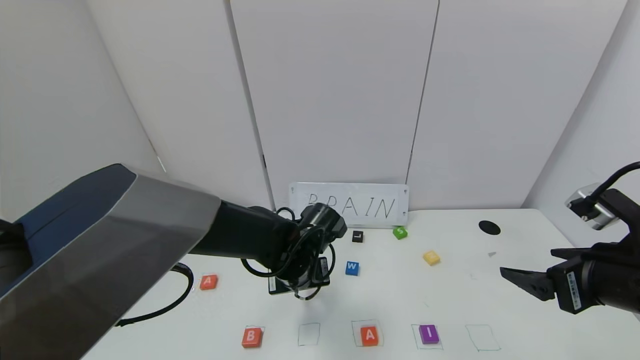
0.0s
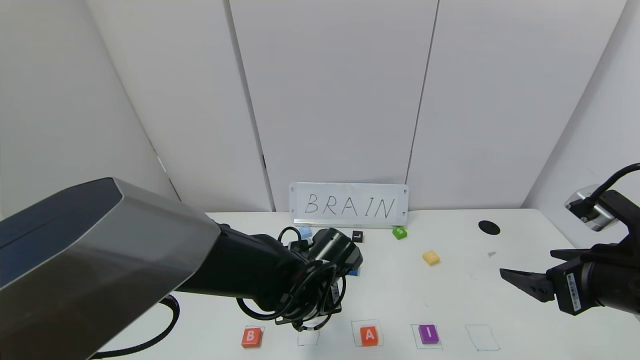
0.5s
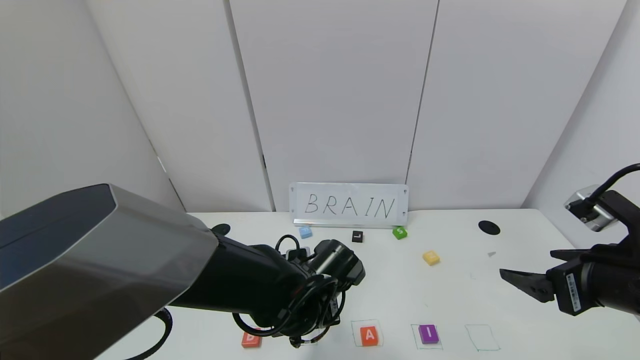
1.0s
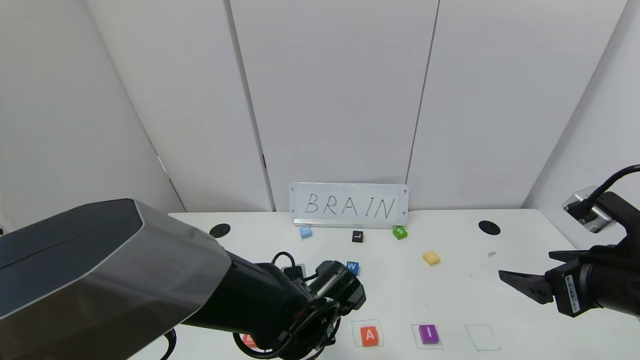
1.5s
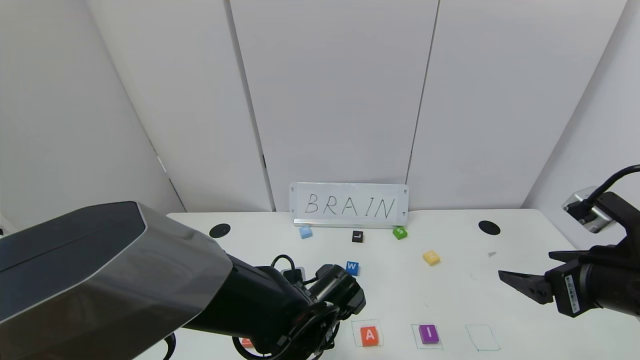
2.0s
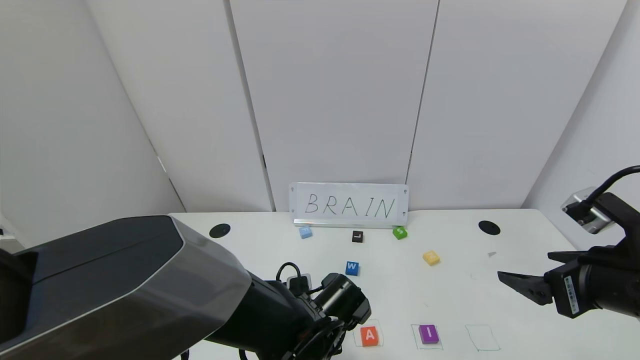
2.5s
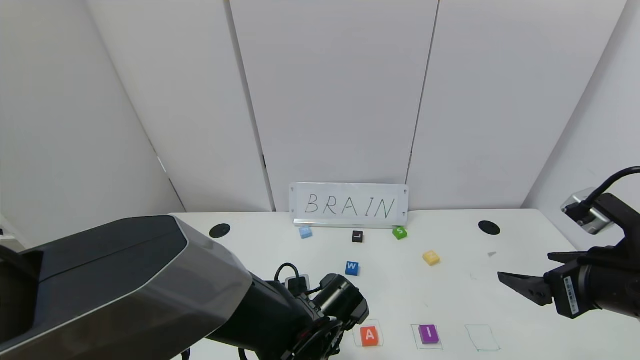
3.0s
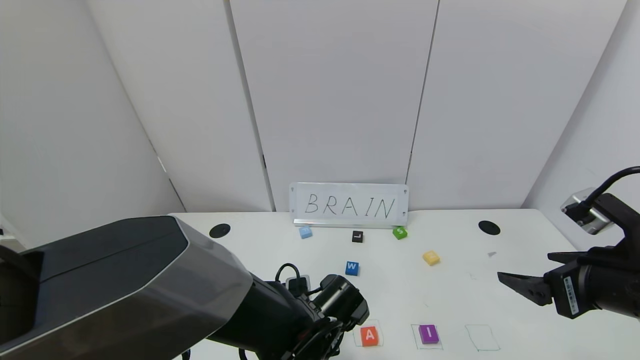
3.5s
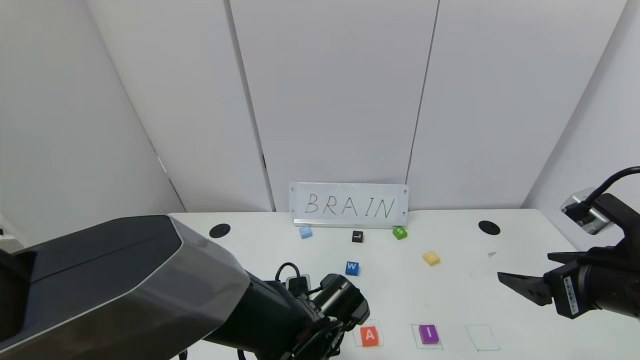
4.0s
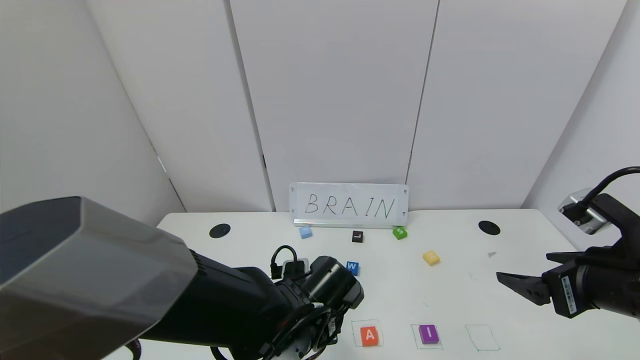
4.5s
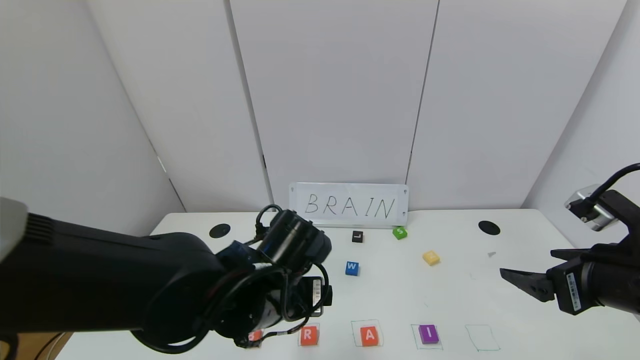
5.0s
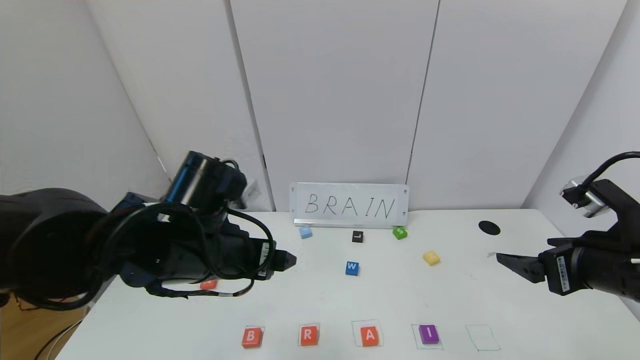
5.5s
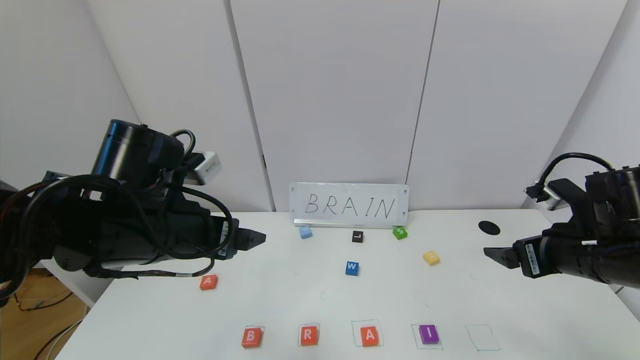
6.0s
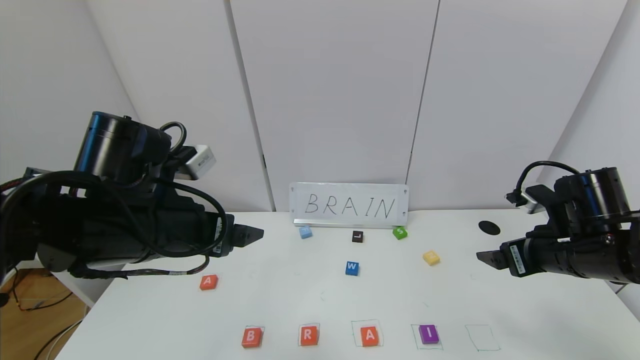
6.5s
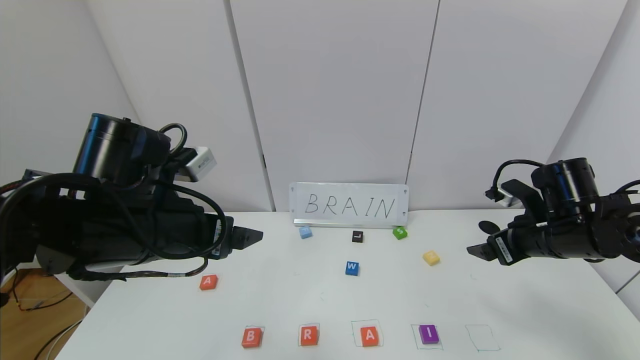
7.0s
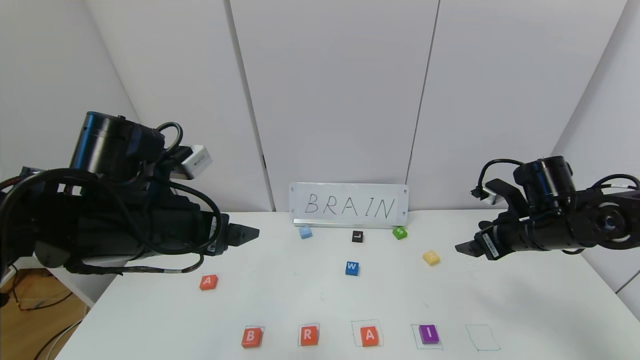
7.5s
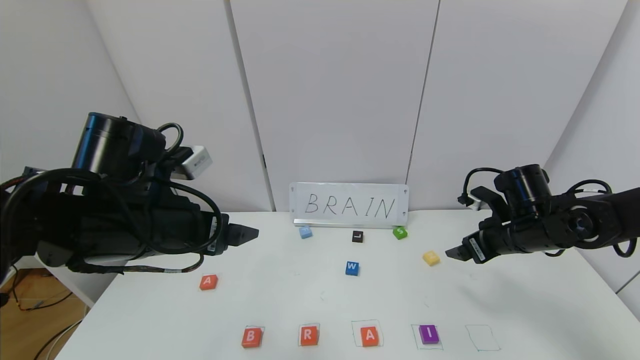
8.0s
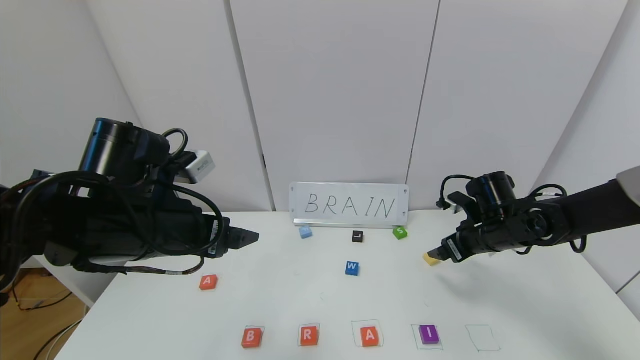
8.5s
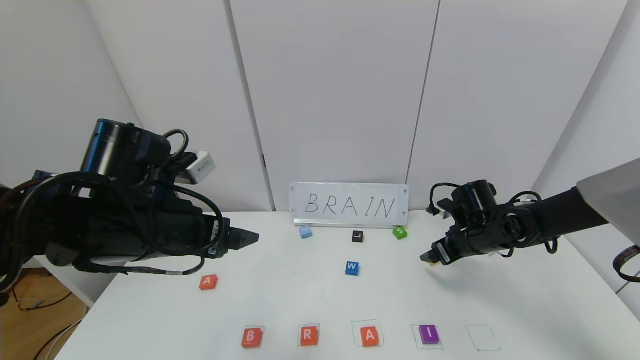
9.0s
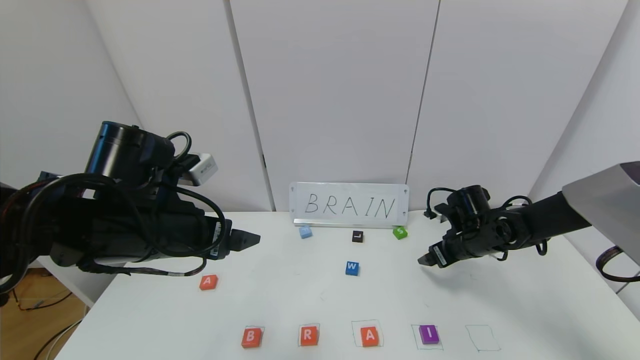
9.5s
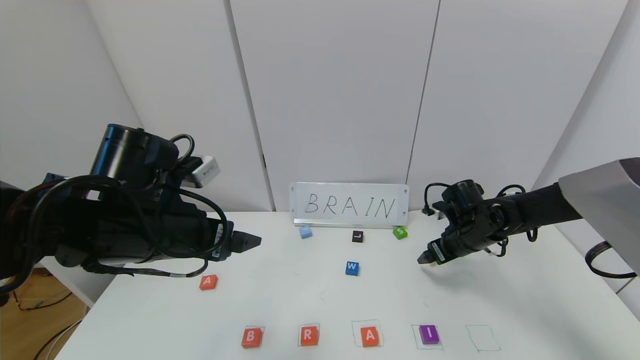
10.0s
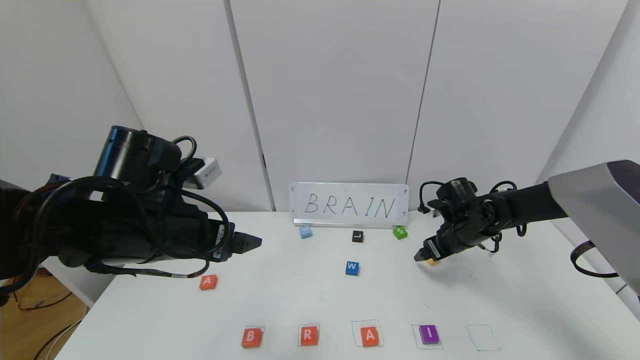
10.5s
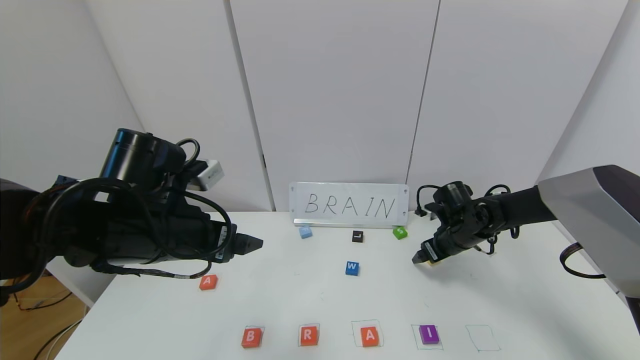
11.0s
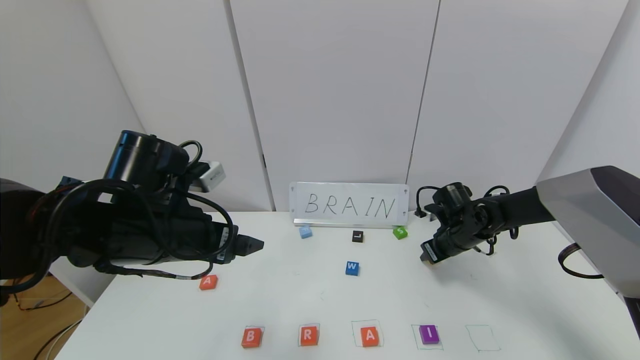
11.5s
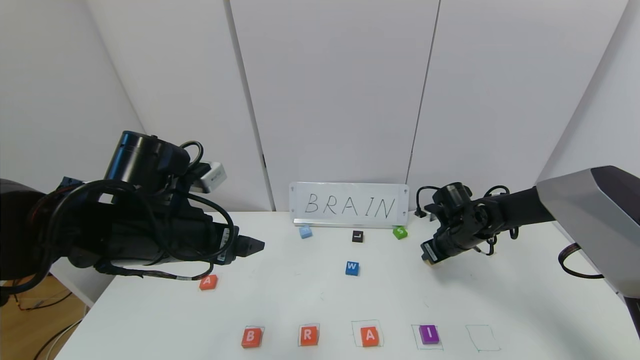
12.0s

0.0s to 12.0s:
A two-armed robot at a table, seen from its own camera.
Task of the whole recording: use the gripper to find blocks with the letters b, a, a, and i on the table and arrange them into BAAI, then find r and N and turn the arranged baai into brian.
Step, 0.0s to 3.5s: Place the block R in the second location.
0.0s to 2.0s: The left gripper goes some 10 cm backward.
2.0s to 4.0s: The left gripper opens its fingers.
4.0s to 6.0s: The left gripper moves upward and to the left, roughly 25 cm, while the right gripper moves forward, some 5 cm.
6.0s to 8.0s: The right gripper heads forward and downward, covering approximately 10 cm.
8.0s to 10.0s: The right gripper shifts about 10 cm forward and downward.
10.0s to 12.0s: The right gripper closes its fingers.

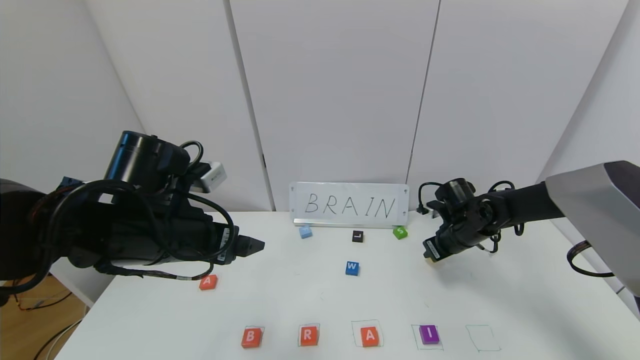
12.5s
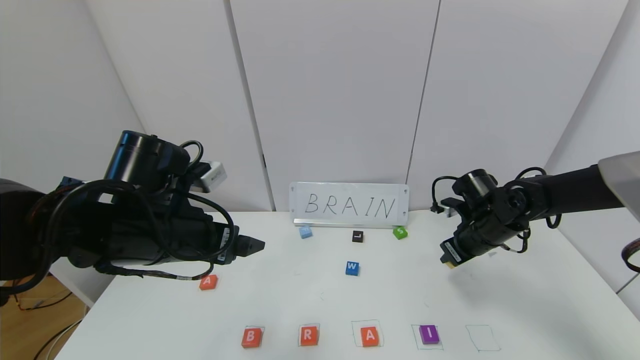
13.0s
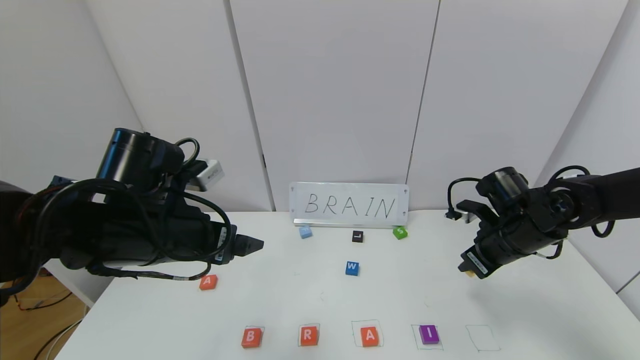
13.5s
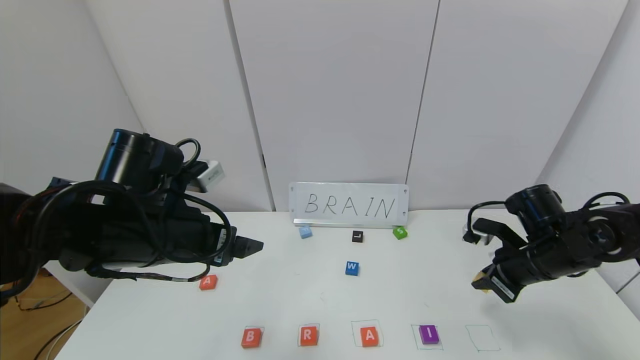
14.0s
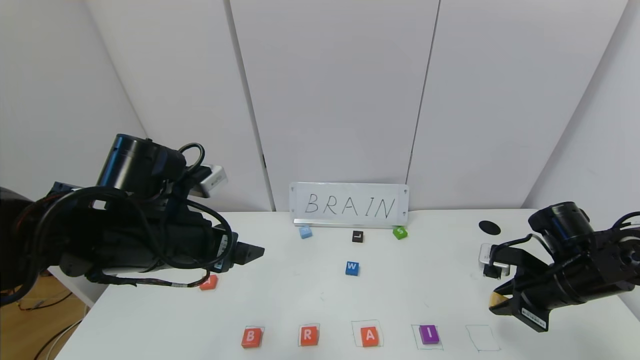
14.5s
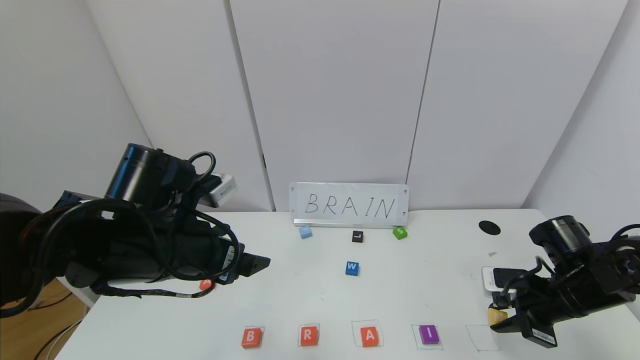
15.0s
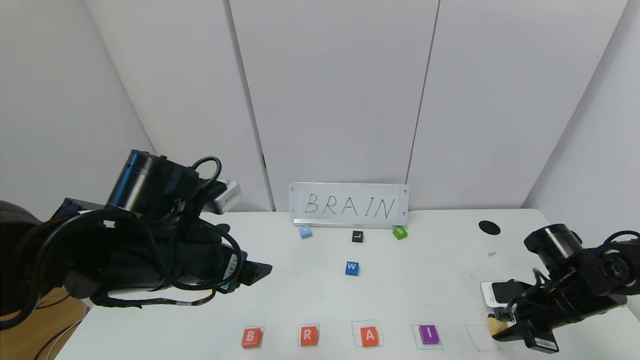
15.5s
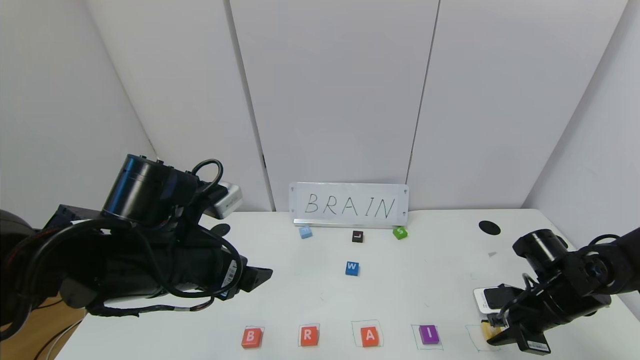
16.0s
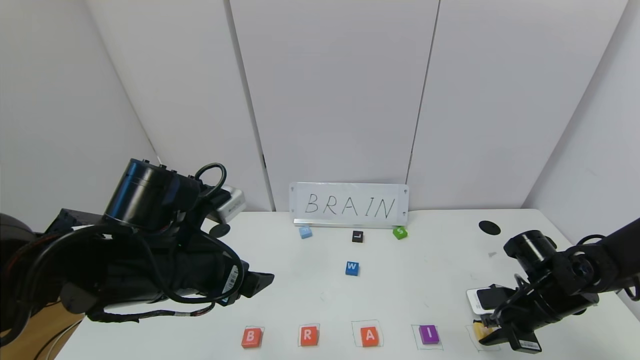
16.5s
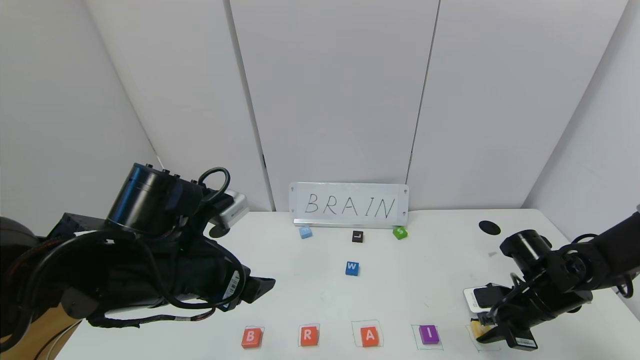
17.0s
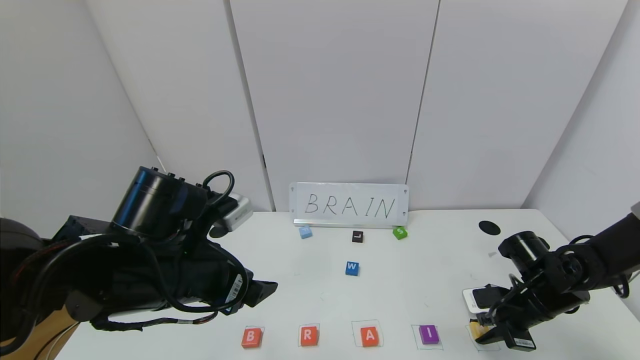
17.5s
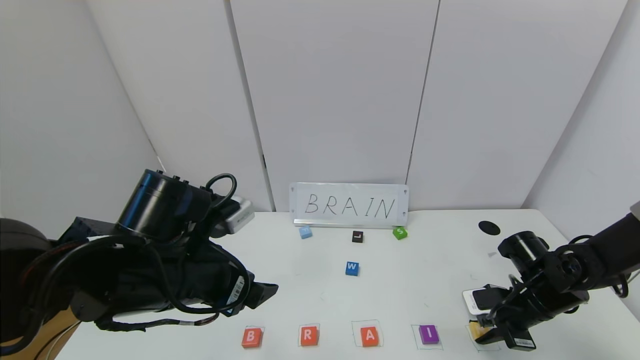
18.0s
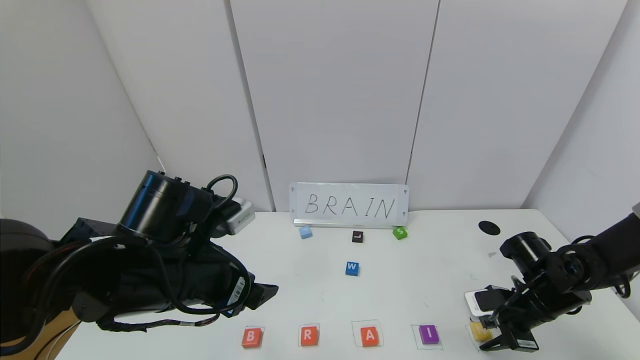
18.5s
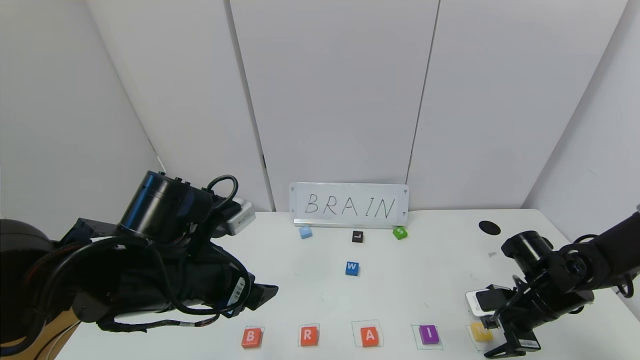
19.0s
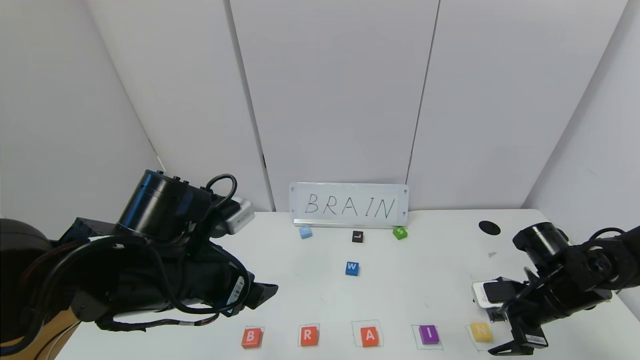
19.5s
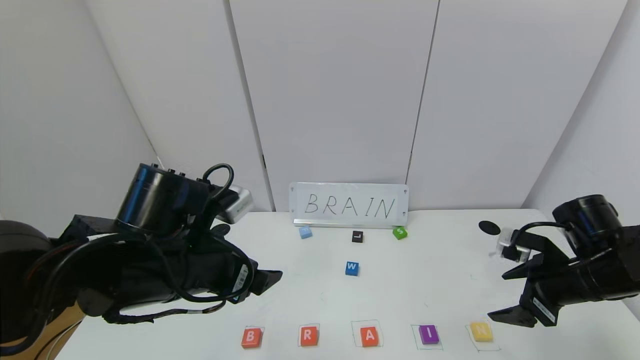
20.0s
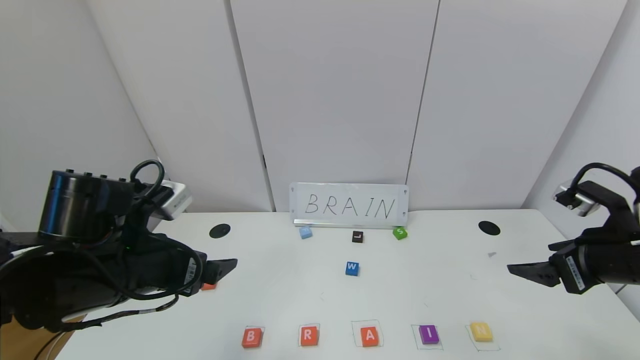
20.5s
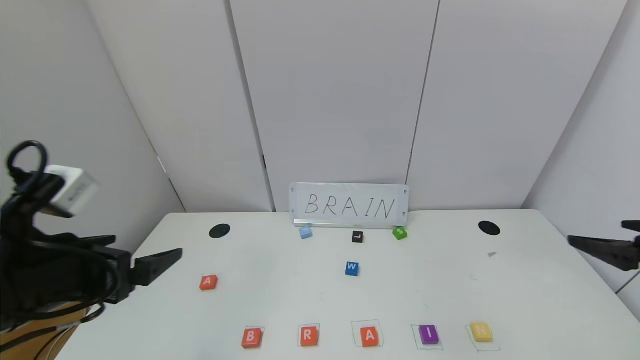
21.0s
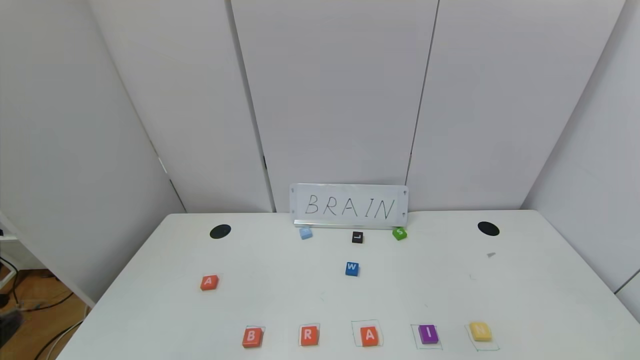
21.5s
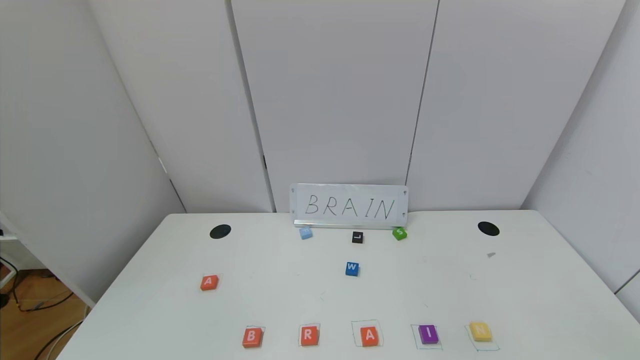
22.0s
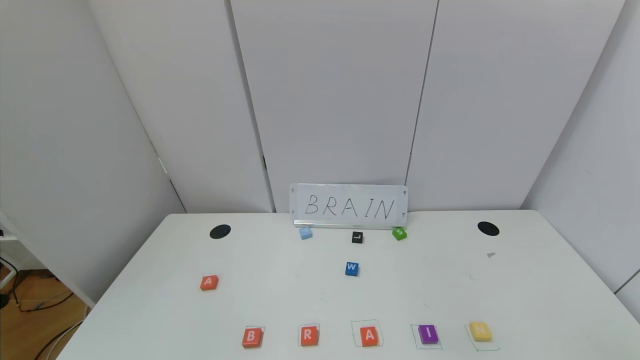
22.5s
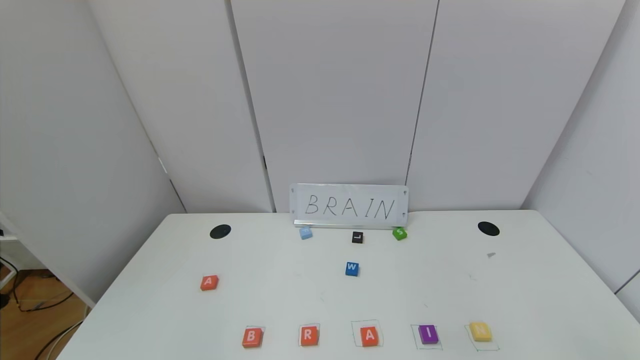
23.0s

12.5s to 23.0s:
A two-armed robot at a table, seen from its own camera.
Task of the whole recording: use the gripper to find blocks with the letters b, a, a, and i on the table and arrange them into BAAI, then find r and N and turn the arranged baai into brian.
Step, 12.5s to 18.5s: Place the block N in the fifth location.
12.5s to 14.5s: The right gripper shifts roughly 15 cm backward and to the right.
14.5s to 16.5s: The right gripper shifts some 5 cm downward.
16.5s to 19.0s: The right gripper opens its fingers.
19.0s to 21.0s: The right gripper is displaced upward and backward by some 25 cm. Meanwhile the left gripper is displaced to the left and backward by about 10 cm.
21.0s to 23.0s: The right gripper is displaced backward and downward by approximately 25 cm, while the left gripper goes some 25 cm backward.
